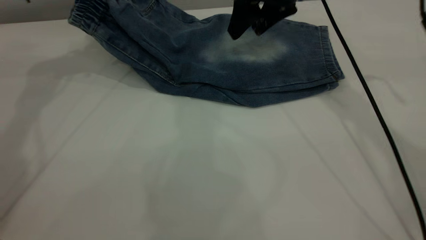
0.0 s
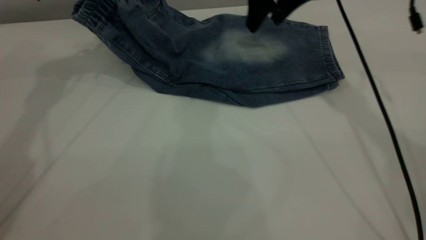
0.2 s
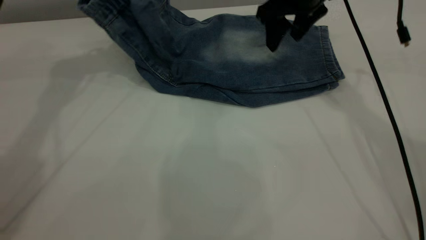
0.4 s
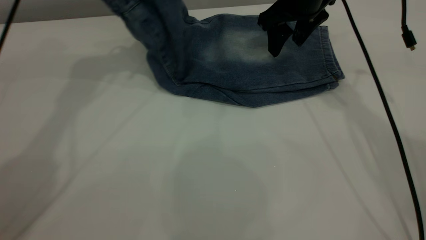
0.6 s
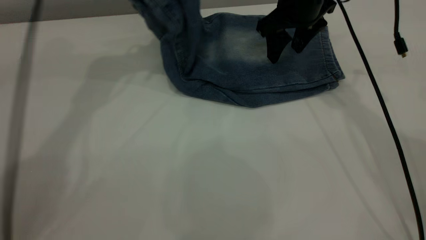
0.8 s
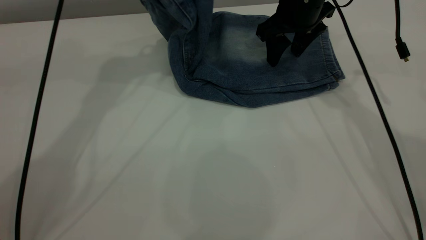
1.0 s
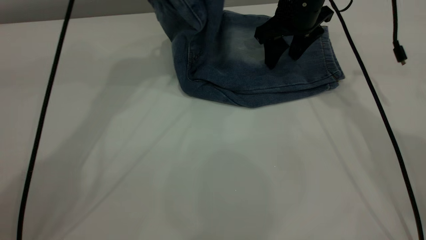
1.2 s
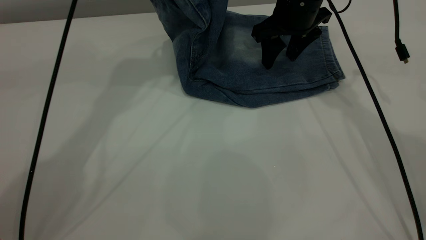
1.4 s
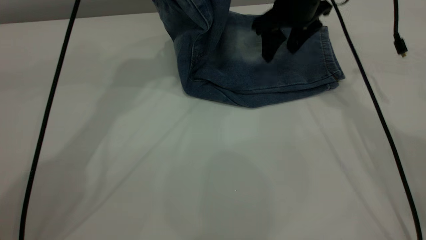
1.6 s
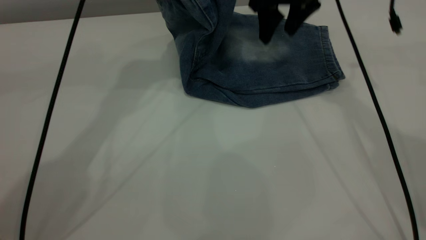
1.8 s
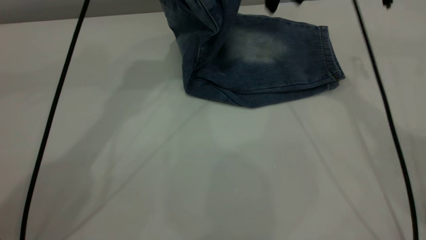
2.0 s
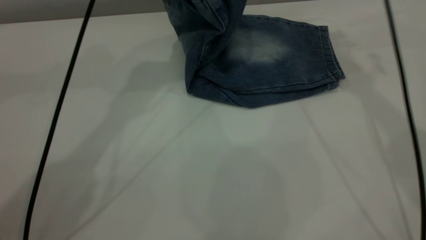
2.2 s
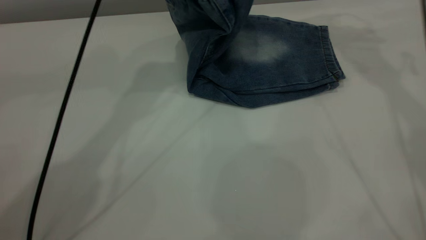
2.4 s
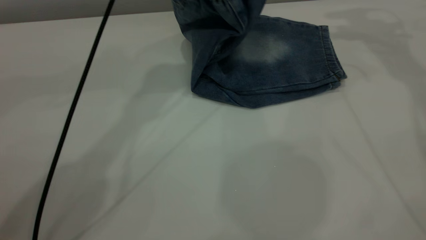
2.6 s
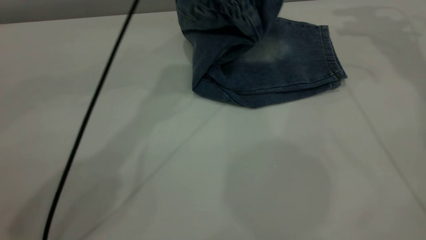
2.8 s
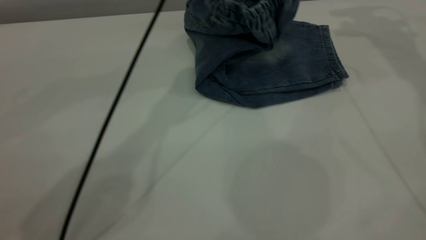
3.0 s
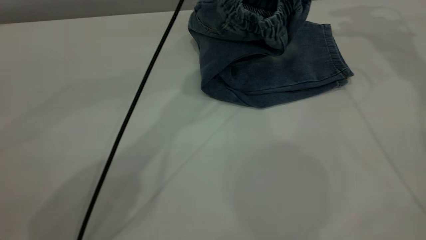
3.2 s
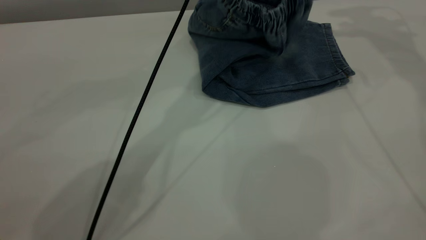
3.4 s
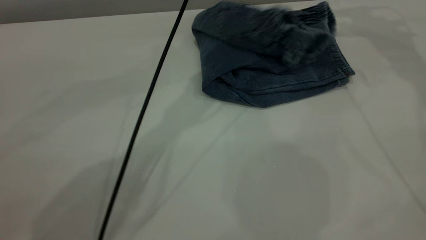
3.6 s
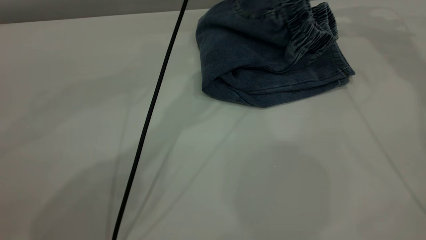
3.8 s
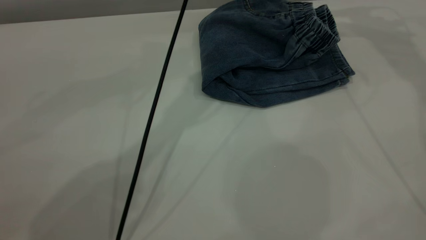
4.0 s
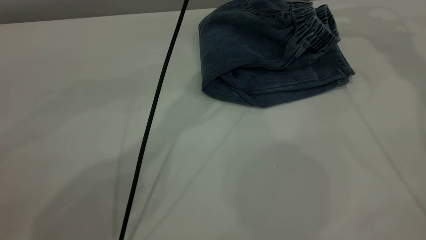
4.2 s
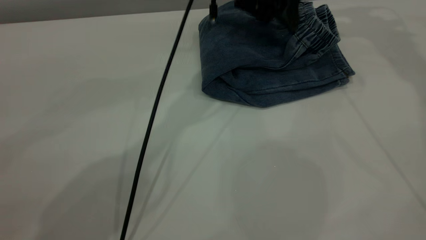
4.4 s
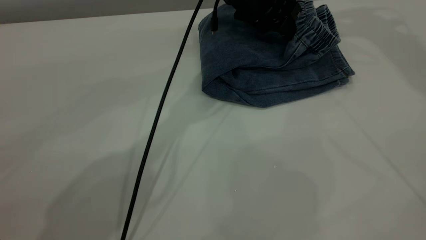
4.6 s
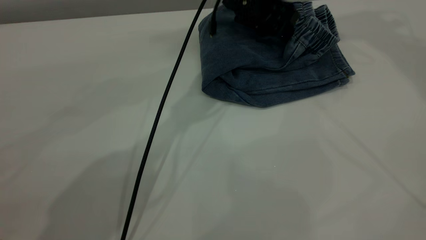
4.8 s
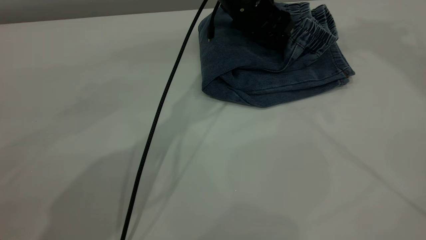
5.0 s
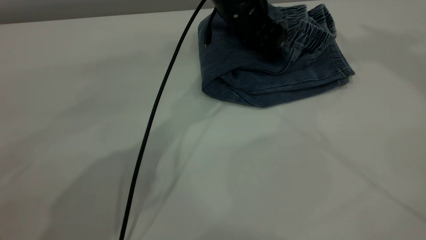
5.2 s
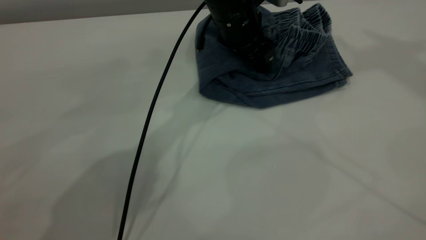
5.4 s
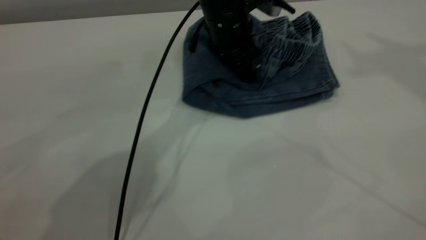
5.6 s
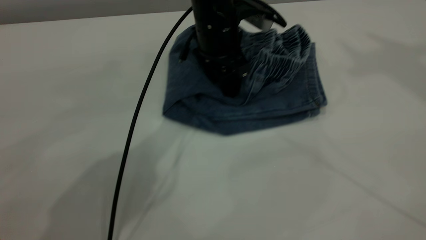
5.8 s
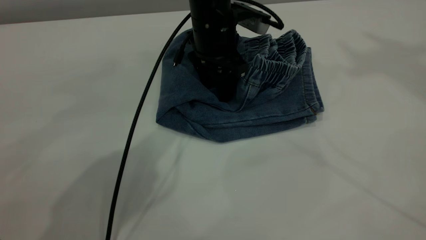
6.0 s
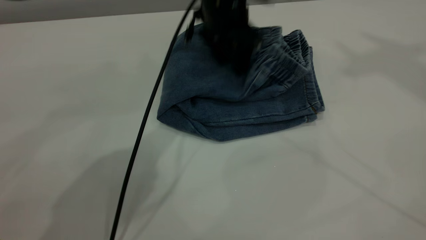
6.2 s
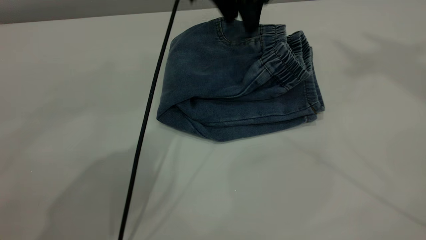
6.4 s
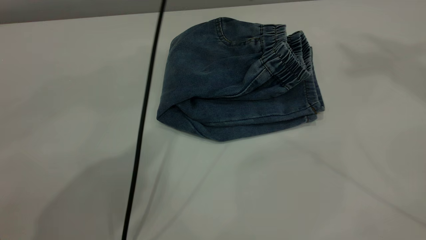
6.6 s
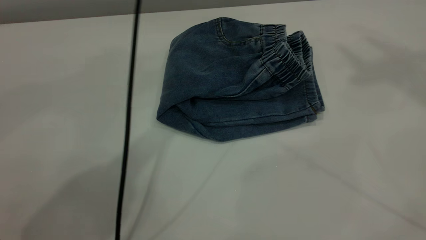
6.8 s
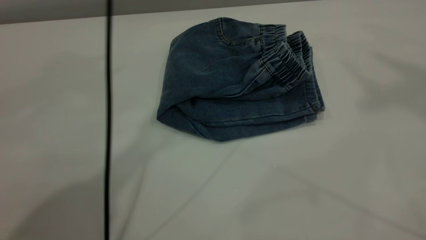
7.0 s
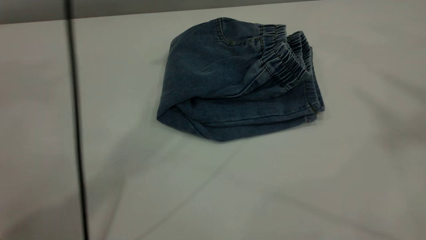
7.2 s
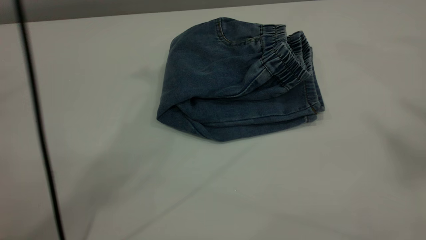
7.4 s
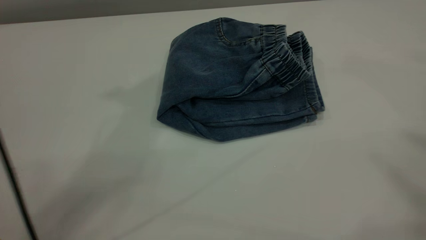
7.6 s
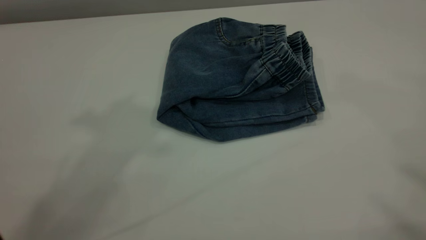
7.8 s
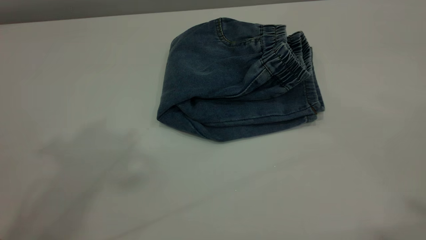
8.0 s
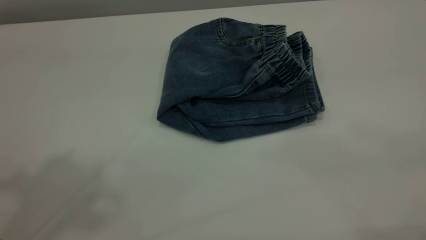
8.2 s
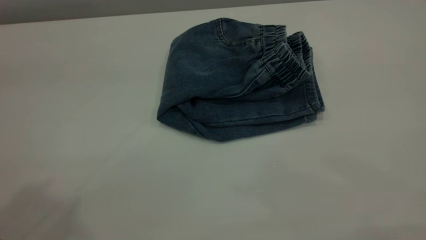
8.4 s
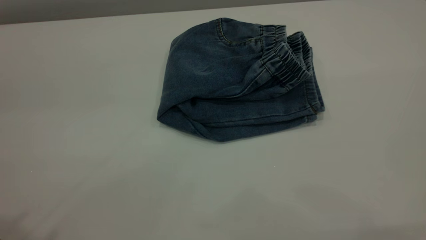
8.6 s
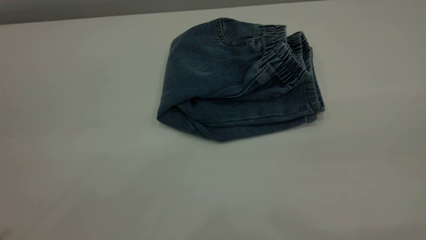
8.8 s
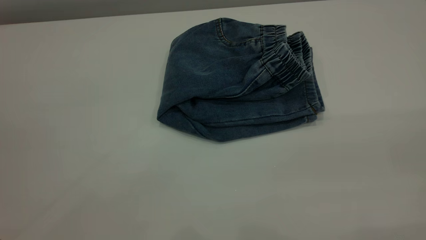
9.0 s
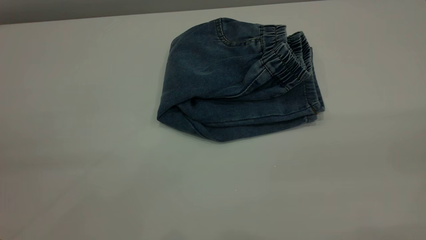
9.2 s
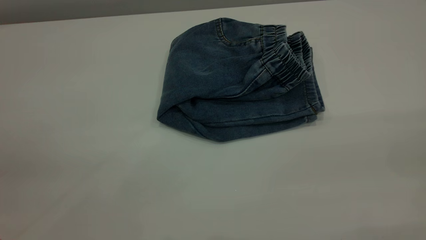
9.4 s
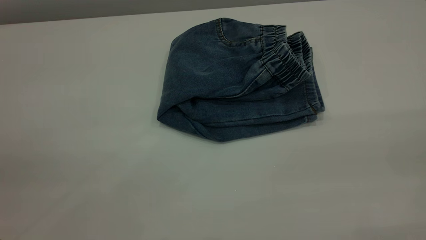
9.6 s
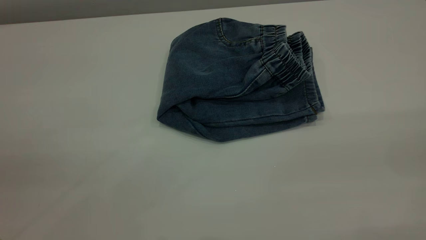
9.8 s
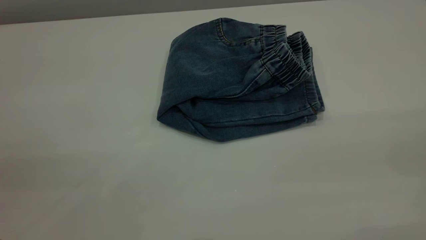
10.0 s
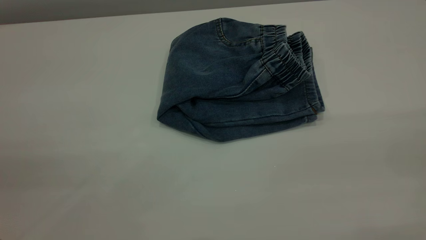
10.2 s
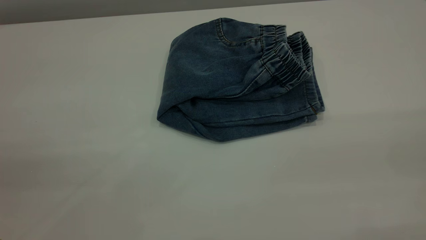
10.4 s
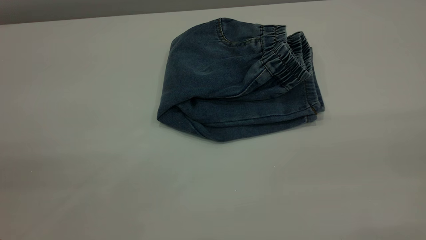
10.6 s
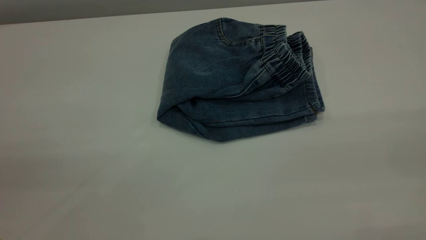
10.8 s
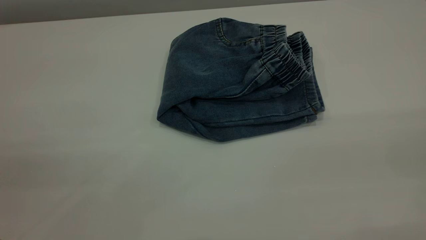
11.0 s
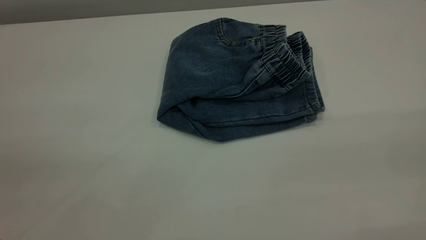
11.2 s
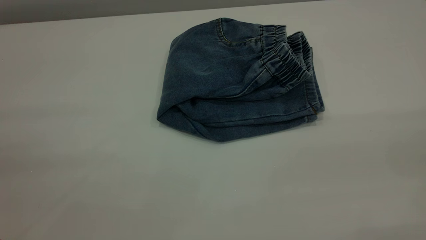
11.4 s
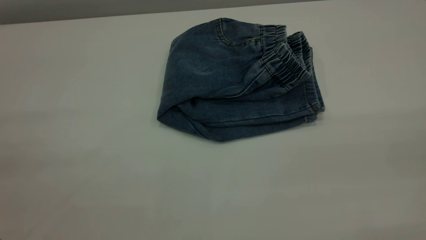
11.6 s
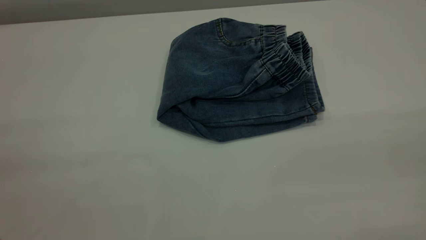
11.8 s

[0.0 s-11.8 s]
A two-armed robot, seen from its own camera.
Step, 0.0 to 4.0 s: Fold the pants from left to right.
0.0 to 1.4 s: The left gripper goes some 15 cm to the right. Meanwhile the right gripper travels downward by roughly 5 cm.
1.4 to 3.0 s: The right gripper travels upward and to the right by roughly 25 cm, while the left gripper is displaced to the right and downward by about 15 cm.
3.0 to 4.4 s: The left gripper goes about 5 cm downward, and opens up.
4.4 to 6.0 s: The left gripper travels downward by some 5 cm. The right gripper shifts some 30 cm upward and backward.
6.0 to 7.4 s: The left gripper shifts roughly 40 cm upward, while the right gripper travels backward and upward by roughly 20 cm.
7.4 to 8.8 s: The left gripper goes some 35 cm backward and to the left.

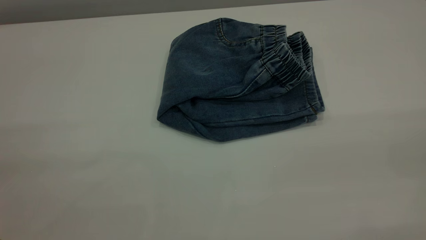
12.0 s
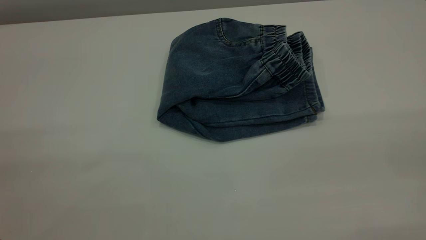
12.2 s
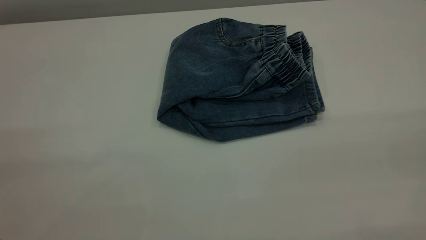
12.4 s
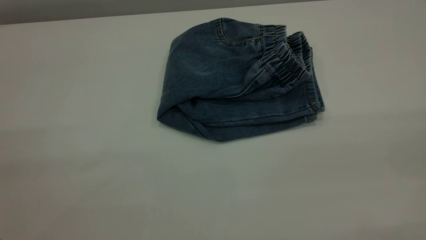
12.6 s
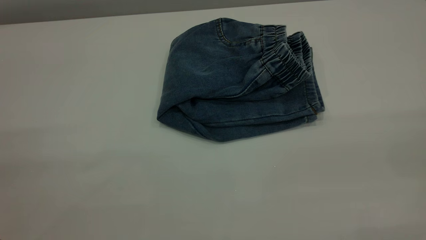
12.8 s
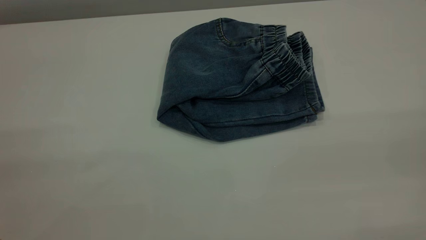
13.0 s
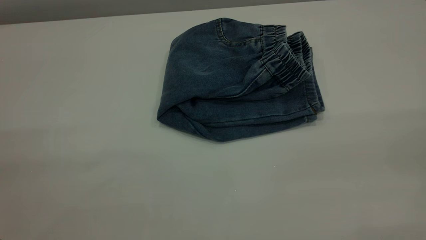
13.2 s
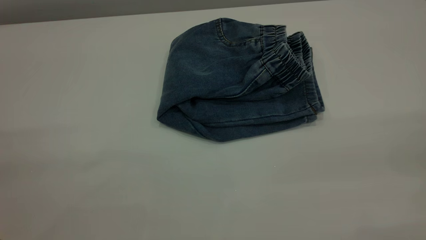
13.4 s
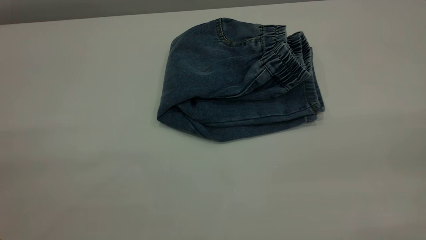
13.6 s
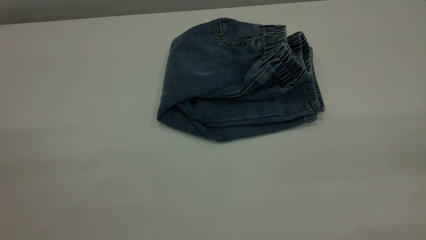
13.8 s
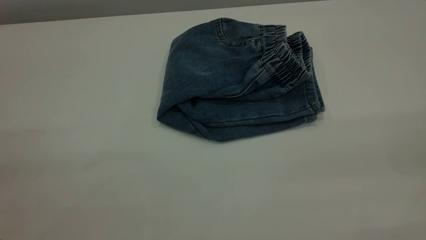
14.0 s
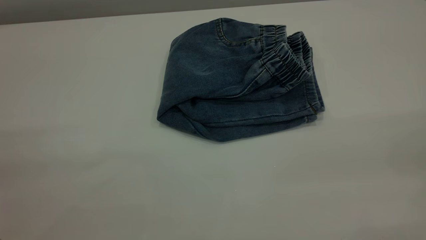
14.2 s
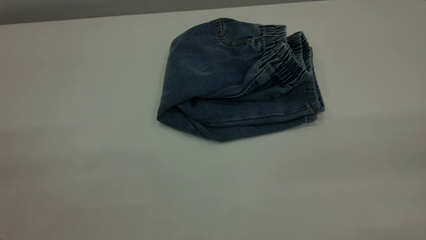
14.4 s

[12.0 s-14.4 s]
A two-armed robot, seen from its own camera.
13.2 to 14.4 s: Both grippers stay put.

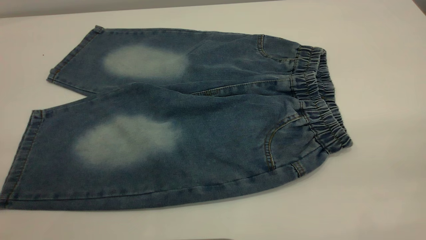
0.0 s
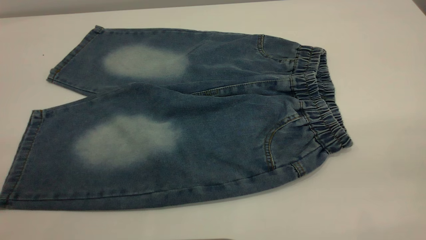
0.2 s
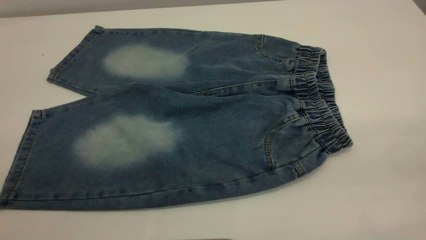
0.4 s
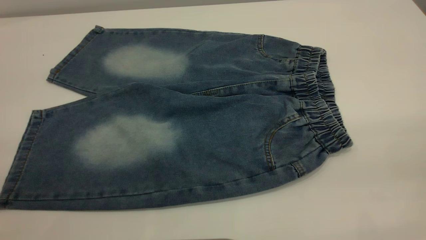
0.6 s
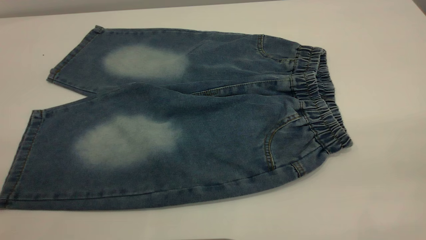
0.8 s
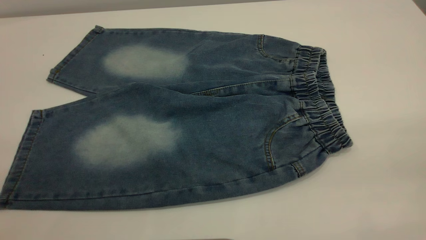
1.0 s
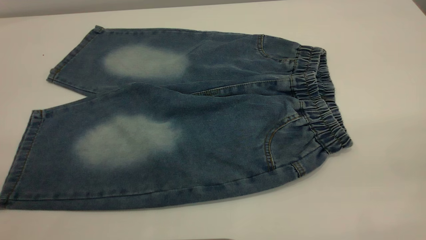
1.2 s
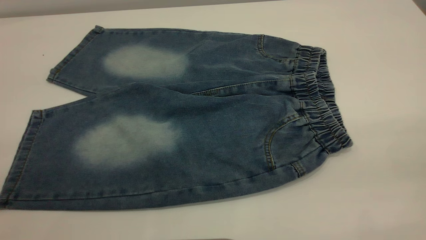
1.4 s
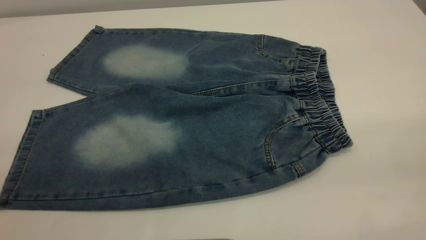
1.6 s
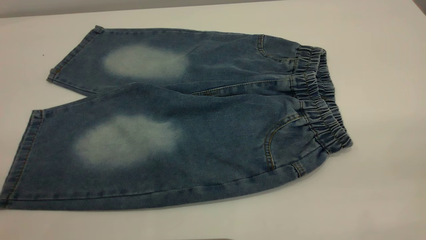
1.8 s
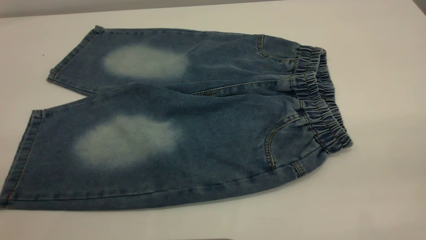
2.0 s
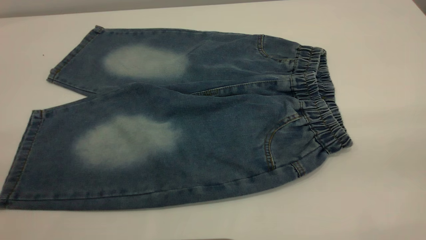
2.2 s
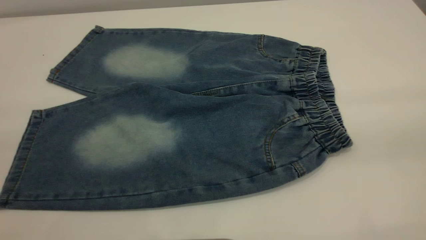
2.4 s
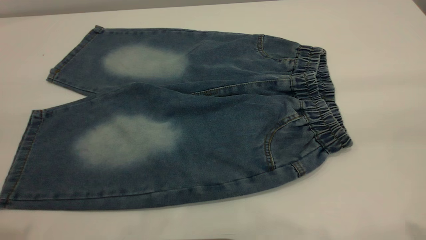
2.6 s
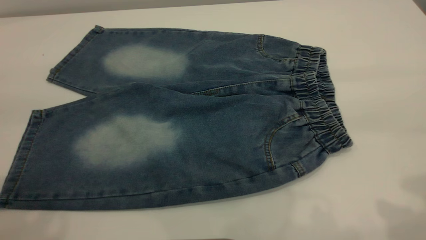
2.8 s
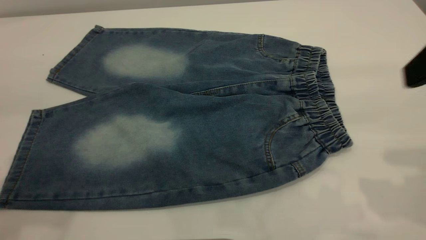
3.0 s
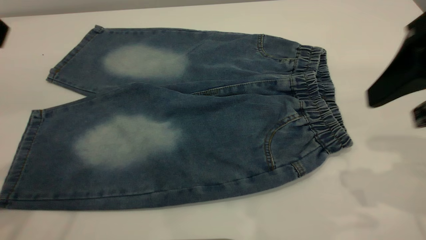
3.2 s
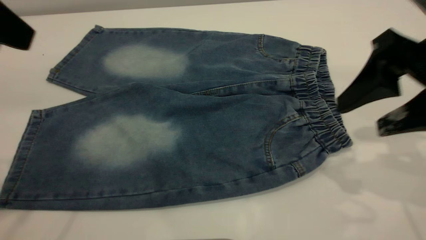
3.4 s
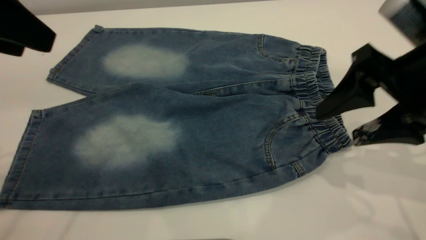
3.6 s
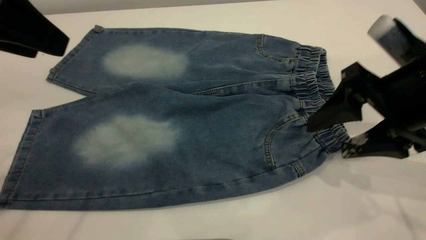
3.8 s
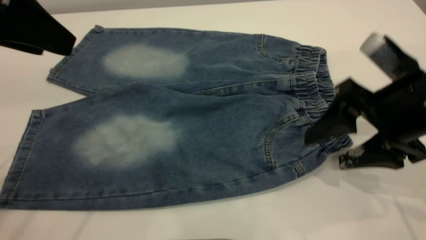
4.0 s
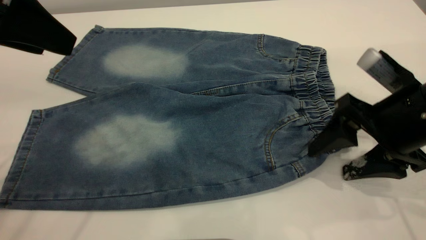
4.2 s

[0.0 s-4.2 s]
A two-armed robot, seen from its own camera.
0.0 to 1.4 s: The two grippers keep their place.
2.8 to 4.2 s: The left gripper moves forward and downward, about 10 cm. The right gripper goes approximately 20 cm downward and forward.
